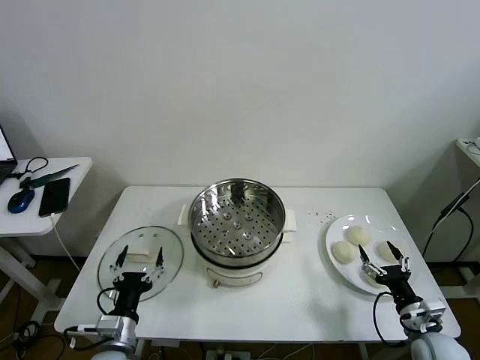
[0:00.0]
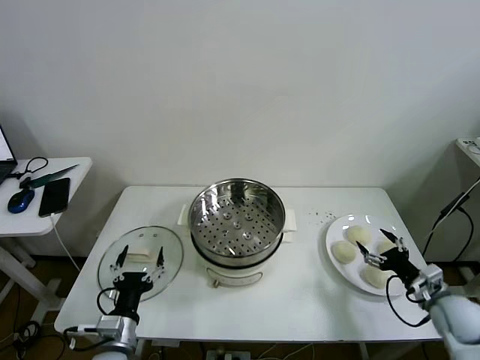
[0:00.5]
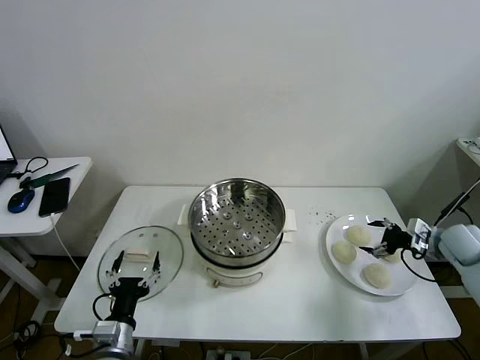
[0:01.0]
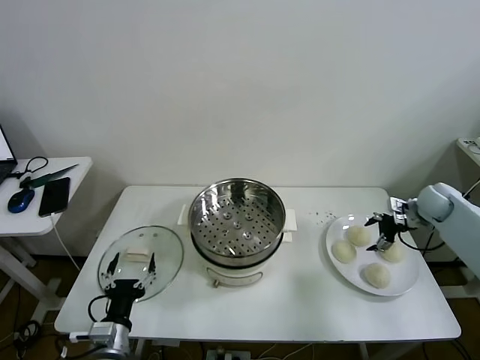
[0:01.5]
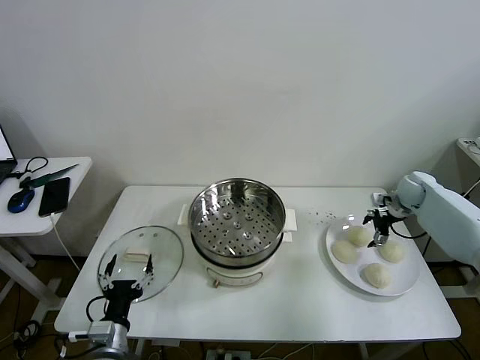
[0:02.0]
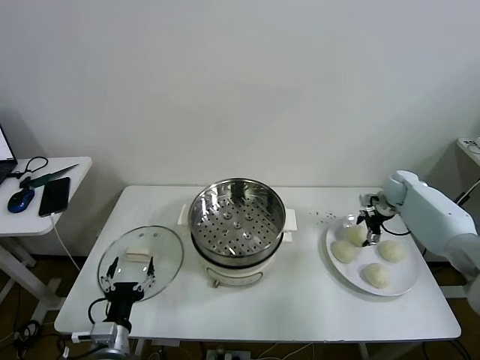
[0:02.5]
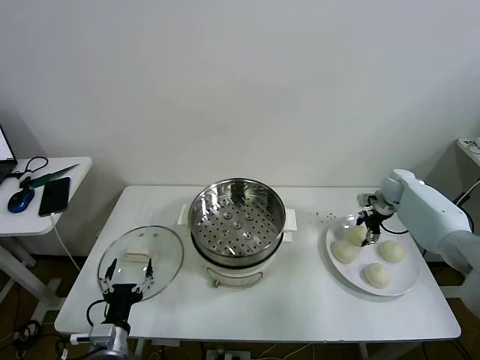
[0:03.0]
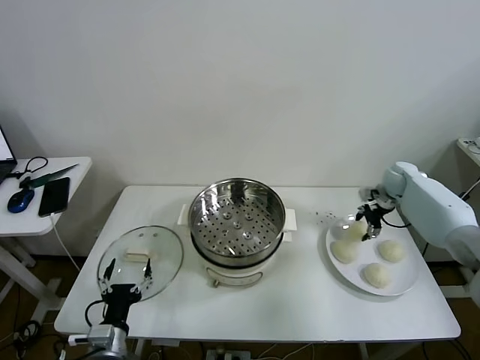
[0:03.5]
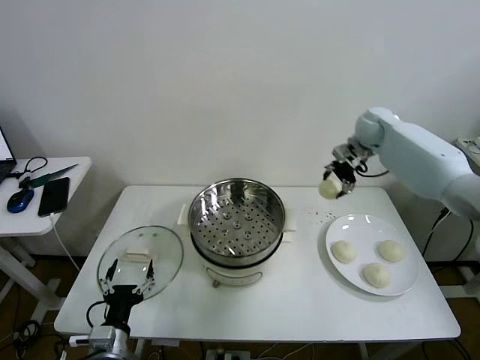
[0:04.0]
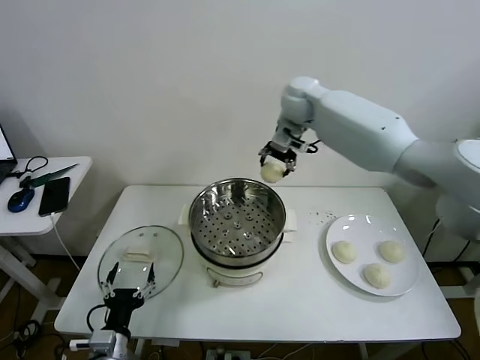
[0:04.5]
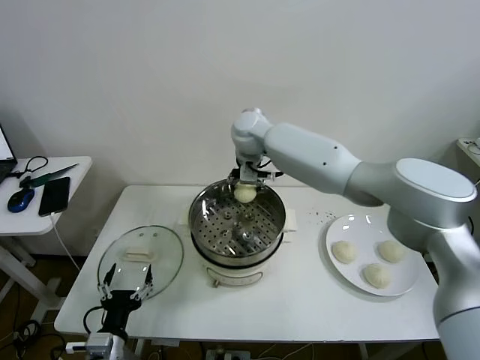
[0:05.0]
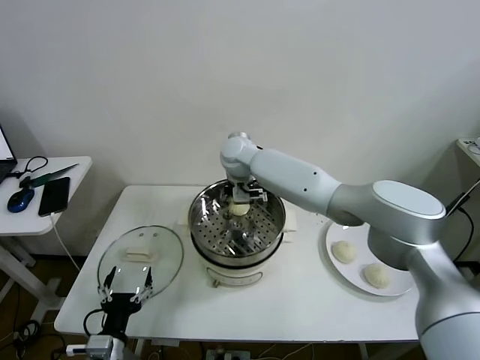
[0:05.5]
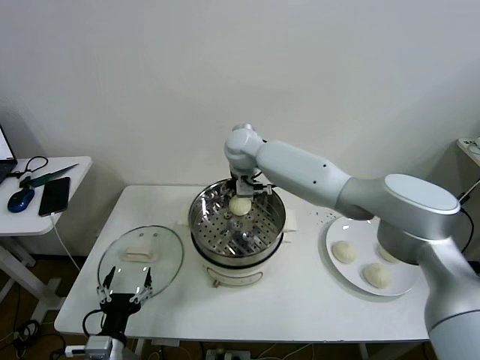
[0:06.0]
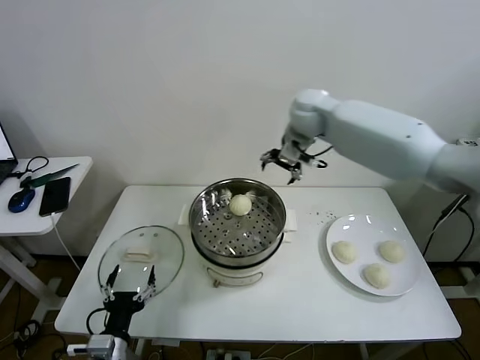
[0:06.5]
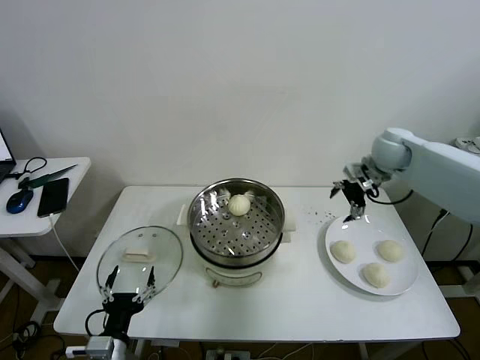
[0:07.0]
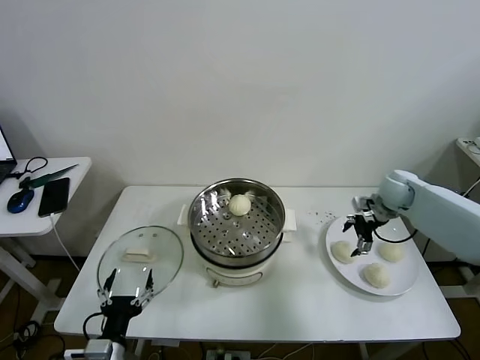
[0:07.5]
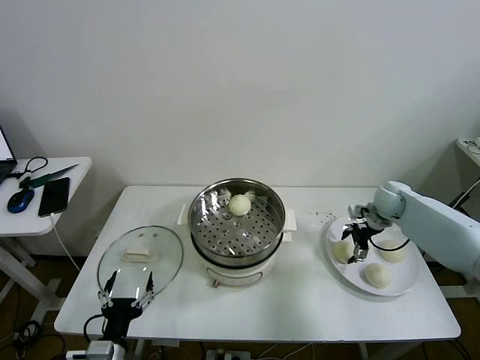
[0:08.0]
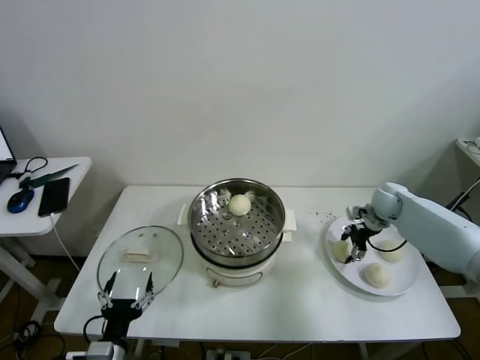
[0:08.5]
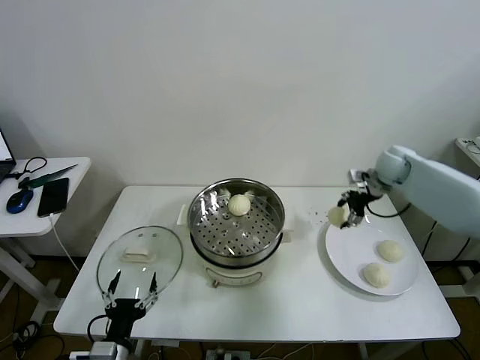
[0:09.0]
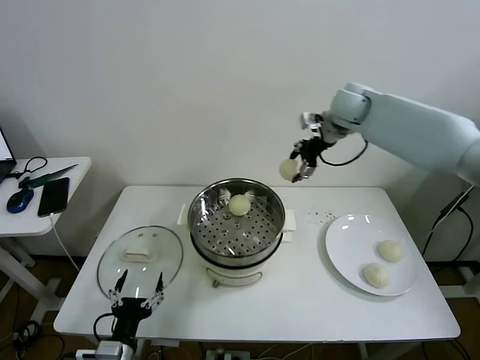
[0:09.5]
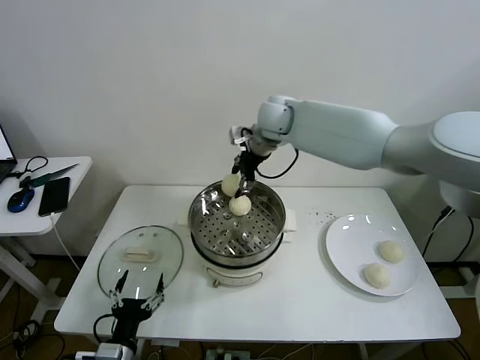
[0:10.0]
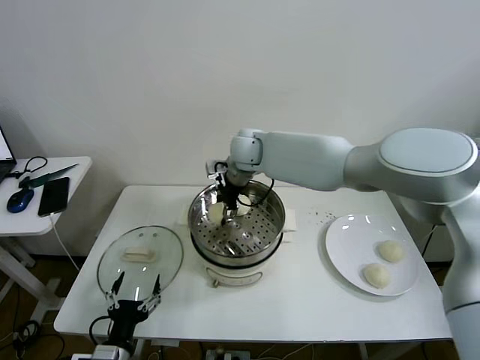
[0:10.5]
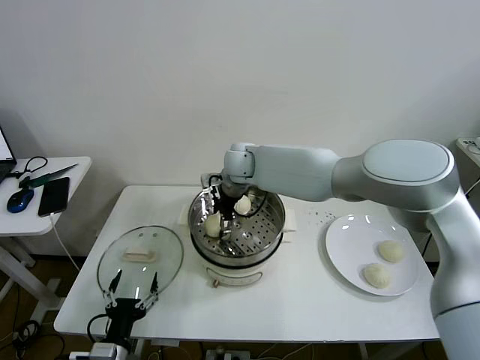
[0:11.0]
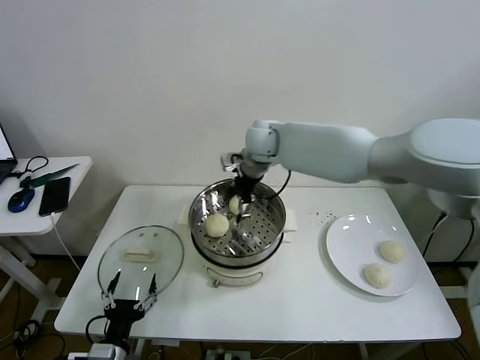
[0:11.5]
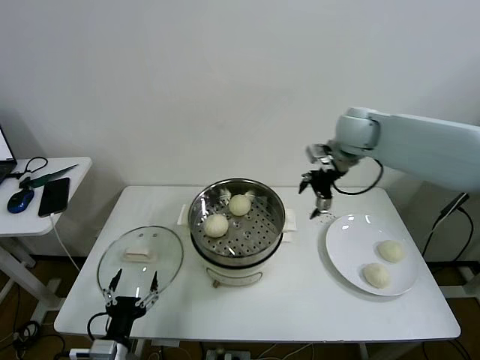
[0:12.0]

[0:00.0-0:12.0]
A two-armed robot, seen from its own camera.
Task of the whole recording: take steamed baozi put them in steamer then cover it.
Step, 0:00.0 to 0:03.0: Grasp the baozi in the plate with right gripper.
Step, 0:03.5 to 0:05.5: Place the baozi on the steamer with right gripper.
Step, 0:06.0 to 0:08.5: Grasp the baozi in the plate with right gripper.
Step, 0:09.0 to 0:11.0: Place the baozi on the steamer with right gripper.
0:02.0 to 0:04.0: The right gripper is displaced upward and to the left by about 25 cm, and closes up.
0:04.0 to 0:06.0: The right gripper heads to the left, covering approximately 25 cm, and opens.
0:06.0 to 0:08.0: The right gripper moves to the right and downward, some 40 cm.
0:08.0 to 0:10.0: The right gripper heads to the left and upward, covering roughly 40 cm, and closes.
0:10.0 to 0:12.0: The right gripper heads to the right, covering about 20 cm, and opens up.

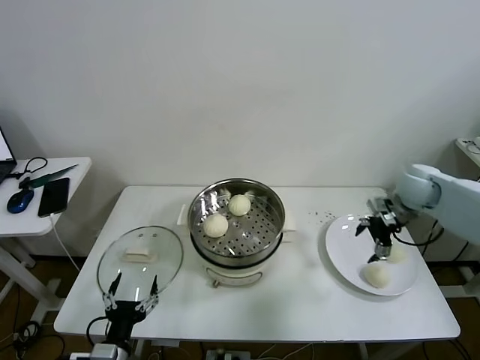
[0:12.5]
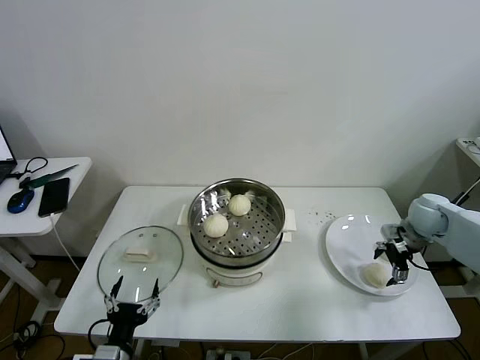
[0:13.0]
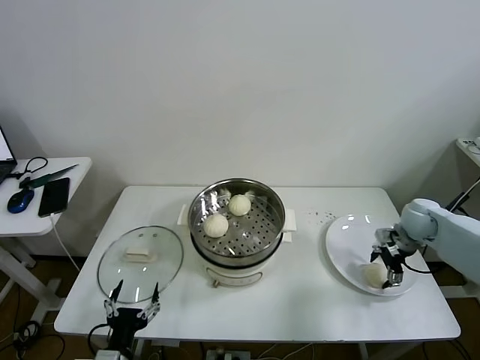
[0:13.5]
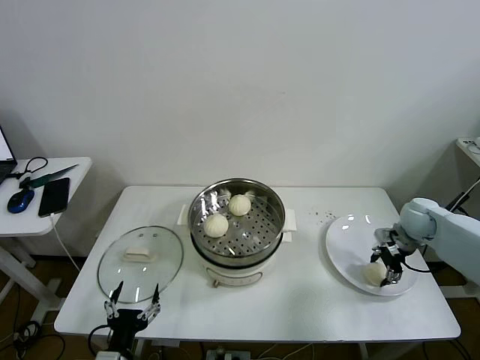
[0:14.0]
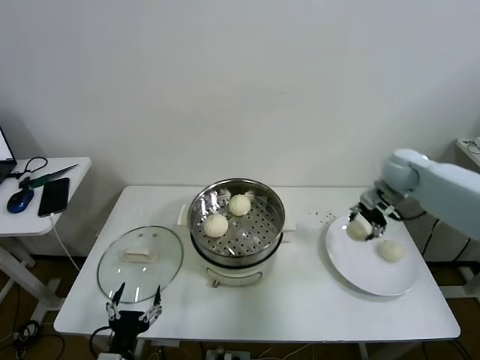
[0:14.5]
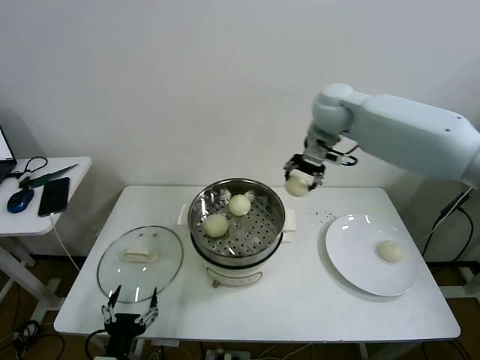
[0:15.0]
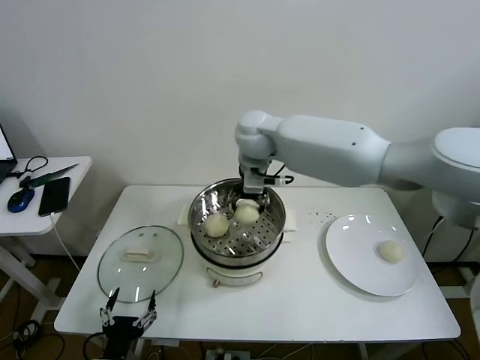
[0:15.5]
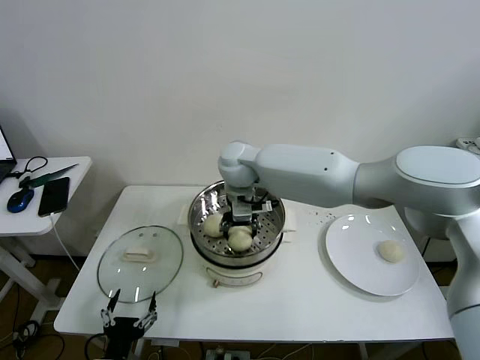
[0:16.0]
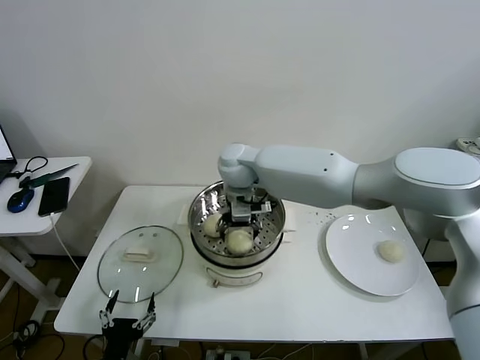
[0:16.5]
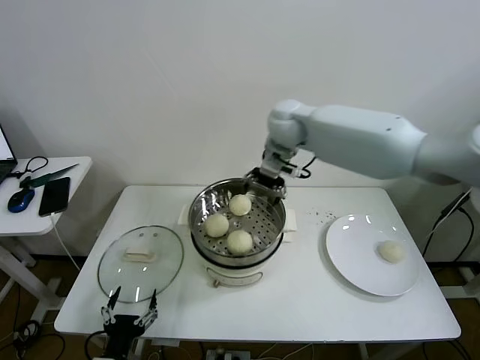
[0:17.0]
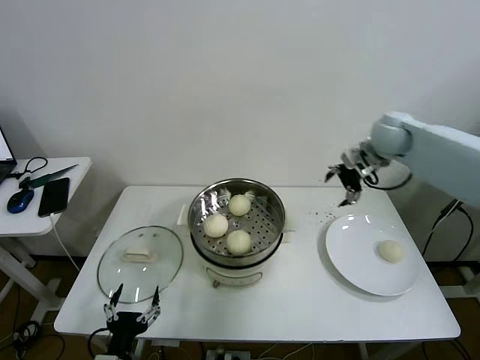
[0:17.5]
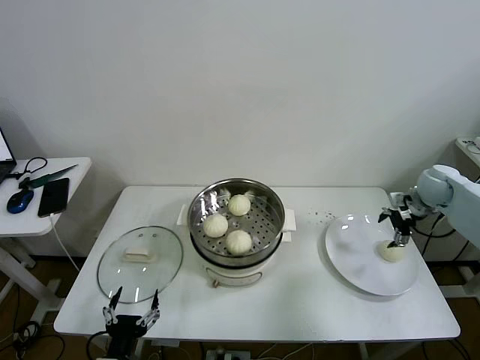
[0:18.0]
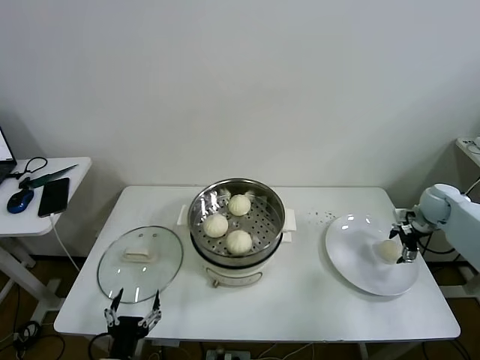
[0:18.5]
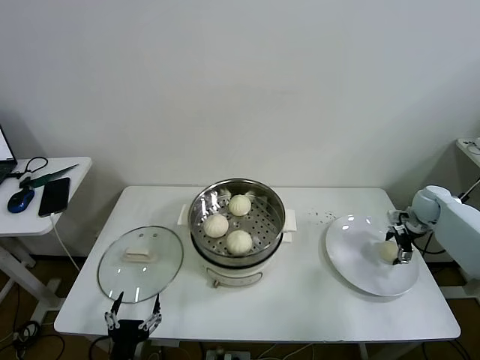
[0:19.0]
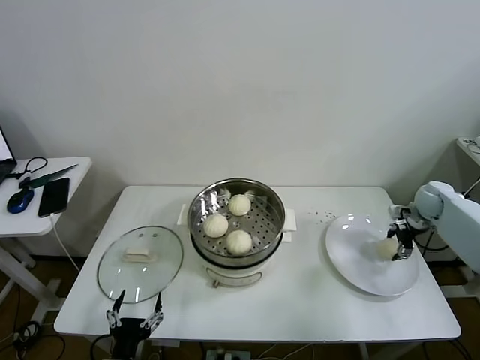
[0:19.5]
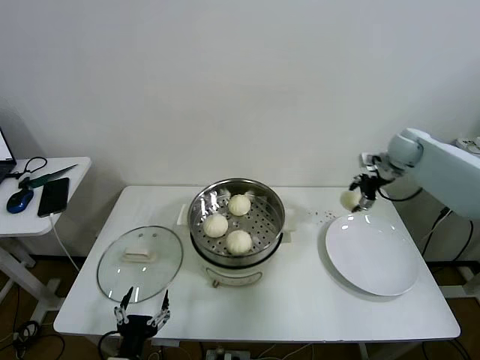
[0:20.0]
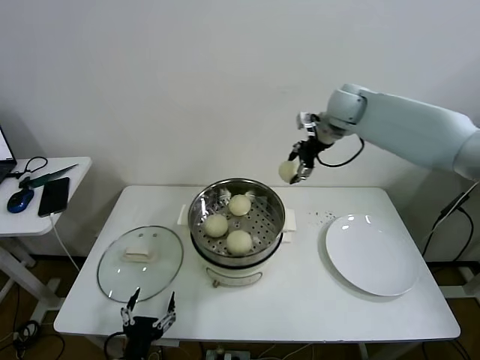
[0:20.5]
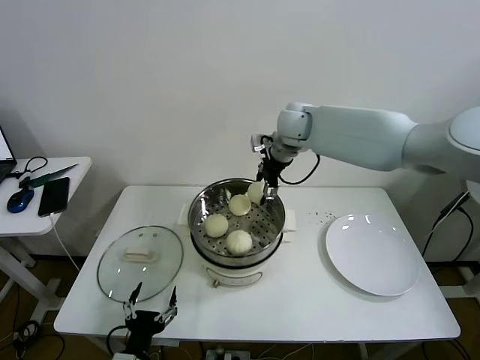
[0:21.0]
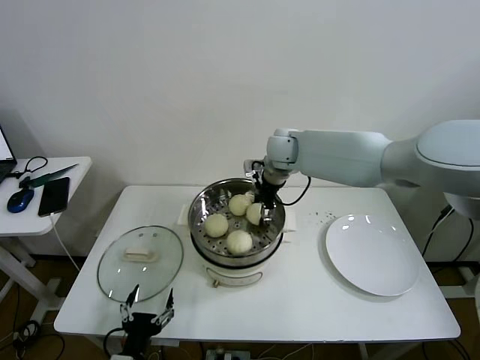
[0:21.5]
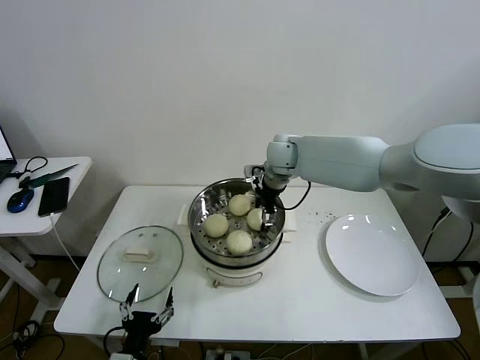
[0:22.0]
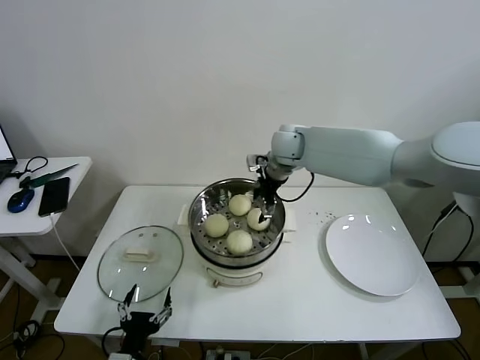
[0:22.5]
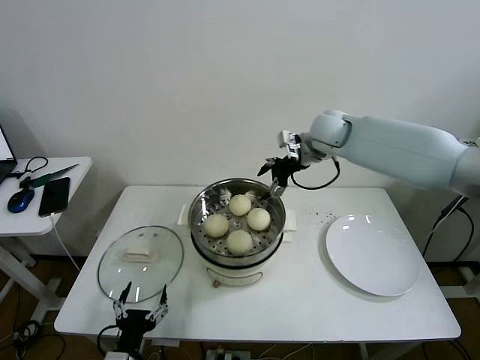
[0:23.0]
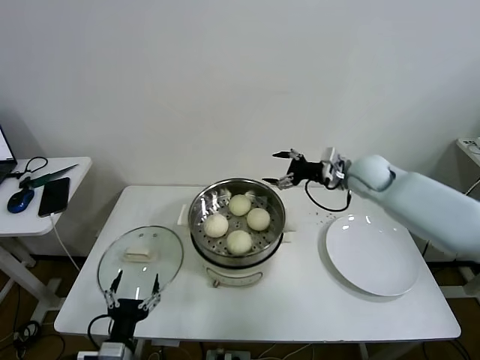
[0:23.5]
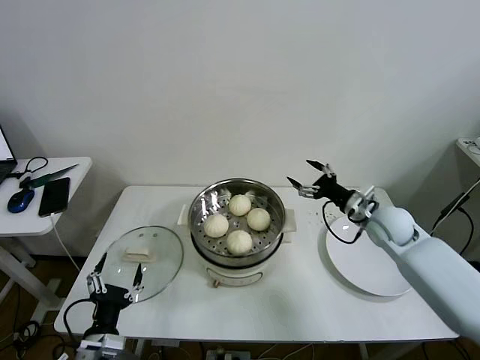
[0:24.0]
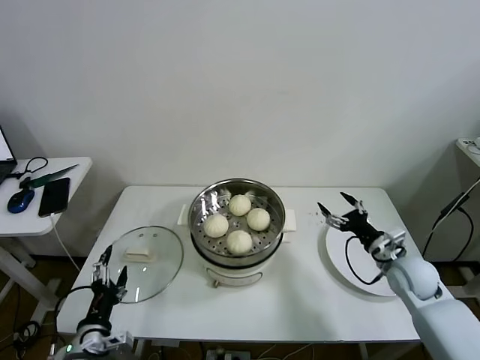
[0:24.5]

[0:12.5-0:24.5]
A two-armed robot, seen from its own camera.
Task of the whole recording: take steamed baozi put them in steamer then cover it.
Step, 0:14.5 to 0:16.0: Place the baozi on the steamer with right gripper.
Step, 0:16.5 to 0:19.0: Grasp the baozi in the plate with right gripper.
Step, 0:19.5 to 0:22.0: Place the baozi on the steamer with right gripper.
0:12.5 to 0:14.5: The right gripper heads forward, covering approximately 5 cm, travels downward and back again, roughly 10 cm each way, and closes.
0:14.5 to 0:16.5: The right gripper is displaced to the left by some 35 cm, and opens its fingers.
0:16.5 to 0:18.5: The right gripper goes approximately 50 cm to the right.
0:18.5 to 0:20.5: The right gripper heads to the left and upward, covering about 35 cm, and closes its fingers.
0:20.5 to 0:22.5: The right gripper is displaced to the left and downward by some 15 cm, and opens up.
0:22.5 to 0:24.5: The right gripper shifts approximately 40 cm to the right, backward and downward. The left gripper heads to the left, covering approximately 5 cm.

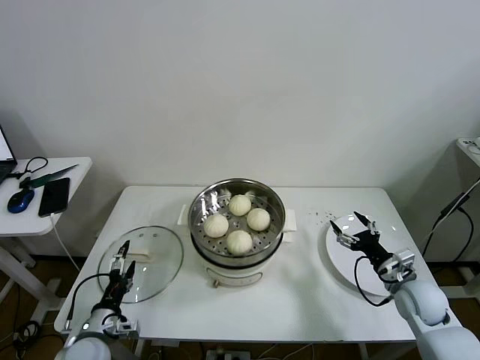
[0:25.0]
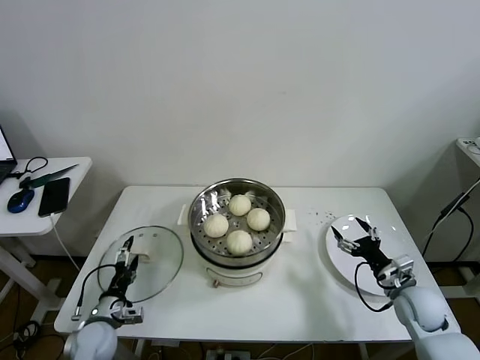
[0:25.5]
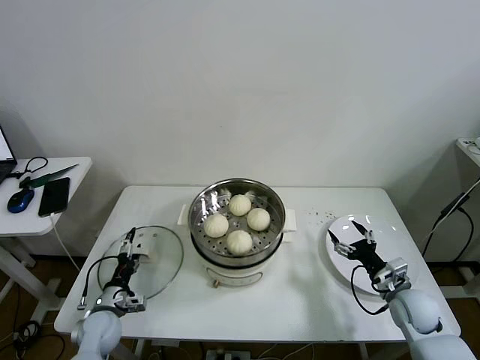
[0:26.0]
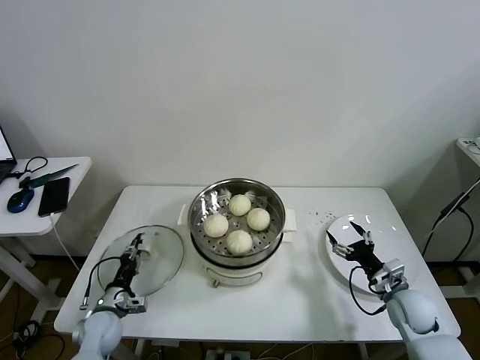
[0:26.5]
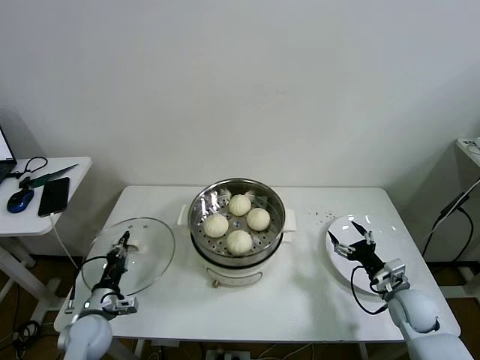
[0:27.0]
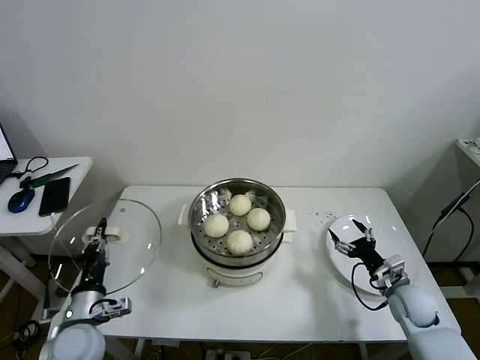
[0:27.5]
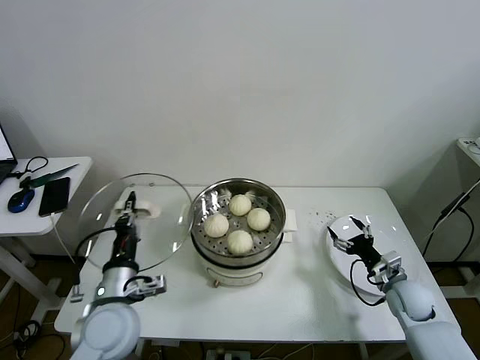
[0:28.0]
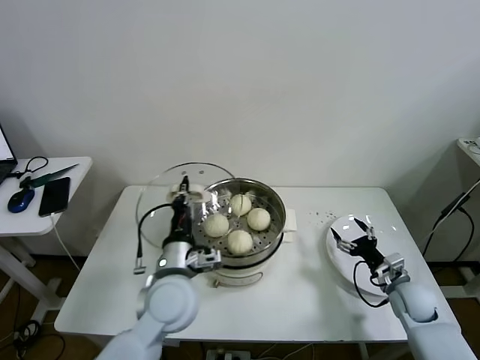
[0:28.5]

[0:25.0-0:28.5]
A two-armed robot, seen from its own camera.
Task of the whole recording: take steamed baozi put them in steamer then cover it.
0:25.0 to 0:27.0: The left gripper goes about 5 cm forward, and closes up.
0:27.0 to 0:28.5: The left gripper moves to the right and upward, some 30 cm.
